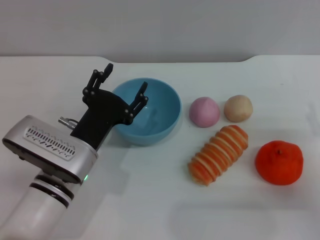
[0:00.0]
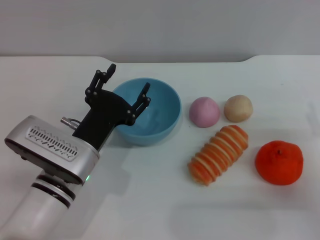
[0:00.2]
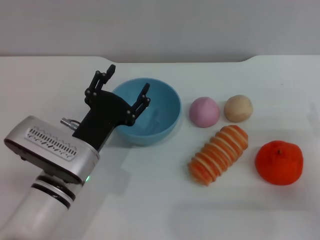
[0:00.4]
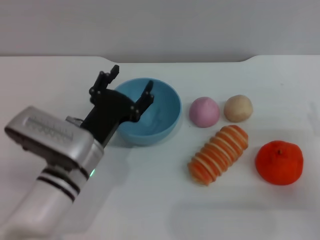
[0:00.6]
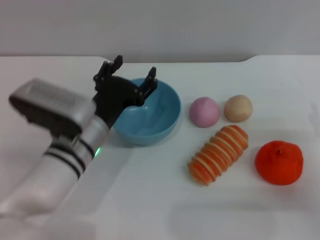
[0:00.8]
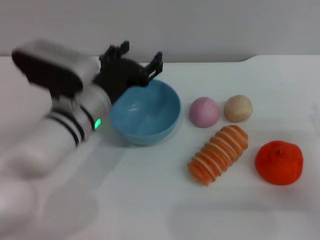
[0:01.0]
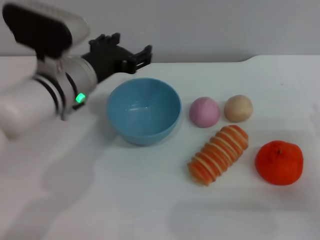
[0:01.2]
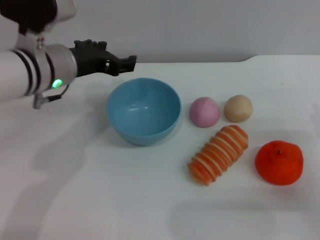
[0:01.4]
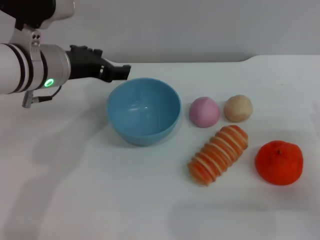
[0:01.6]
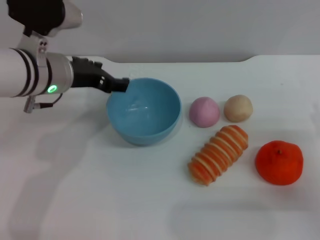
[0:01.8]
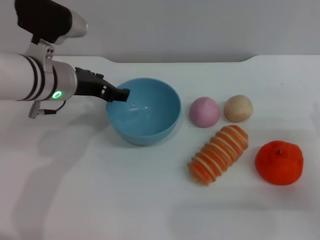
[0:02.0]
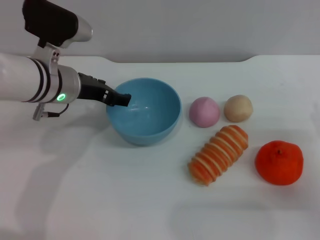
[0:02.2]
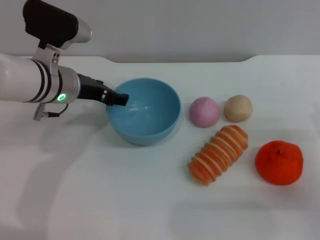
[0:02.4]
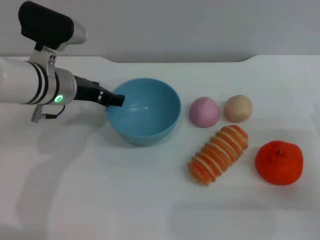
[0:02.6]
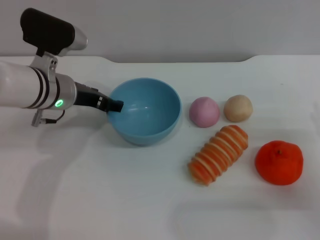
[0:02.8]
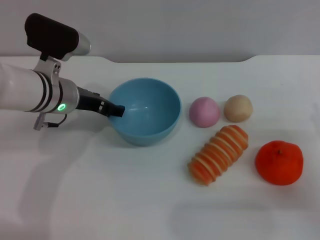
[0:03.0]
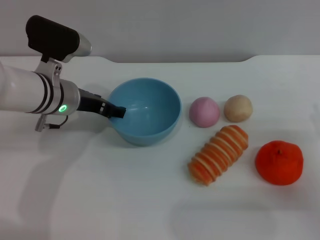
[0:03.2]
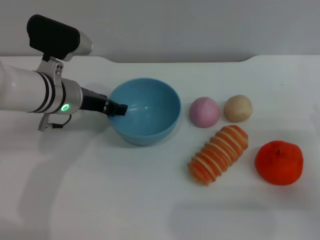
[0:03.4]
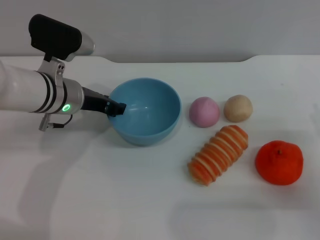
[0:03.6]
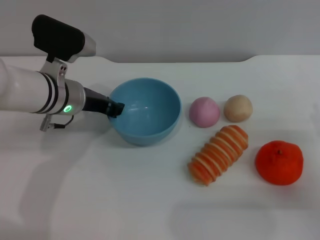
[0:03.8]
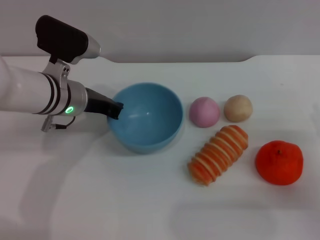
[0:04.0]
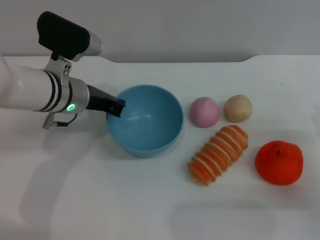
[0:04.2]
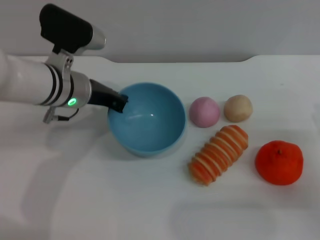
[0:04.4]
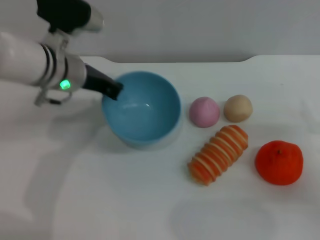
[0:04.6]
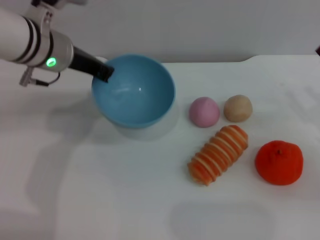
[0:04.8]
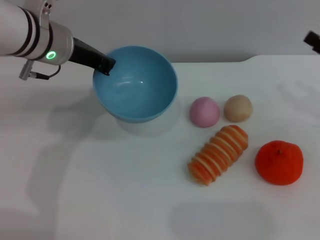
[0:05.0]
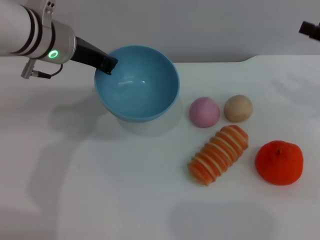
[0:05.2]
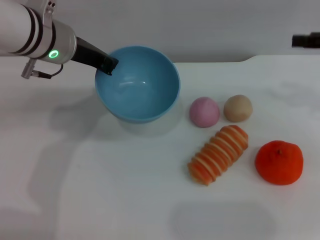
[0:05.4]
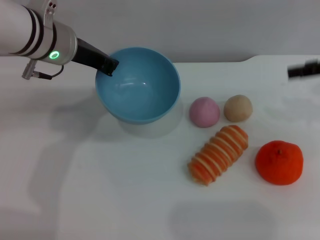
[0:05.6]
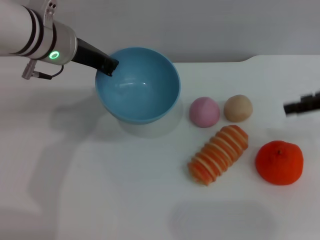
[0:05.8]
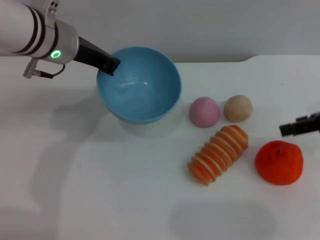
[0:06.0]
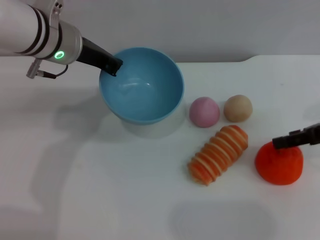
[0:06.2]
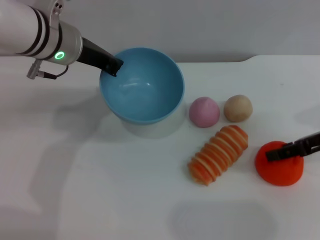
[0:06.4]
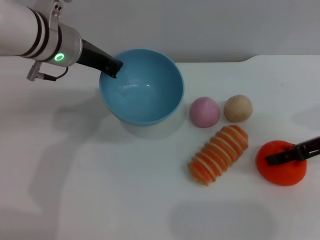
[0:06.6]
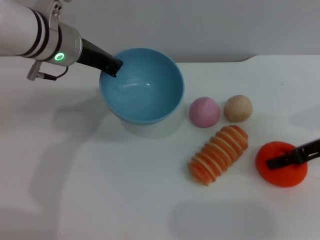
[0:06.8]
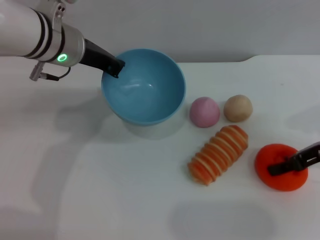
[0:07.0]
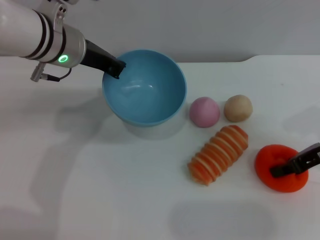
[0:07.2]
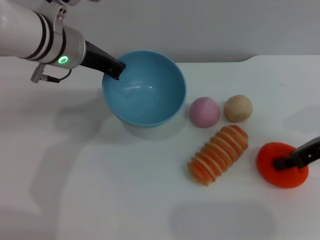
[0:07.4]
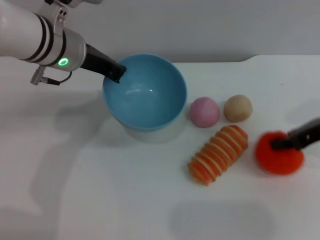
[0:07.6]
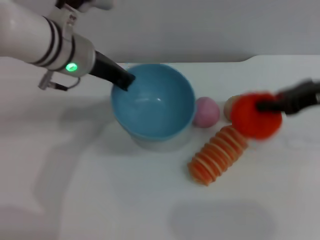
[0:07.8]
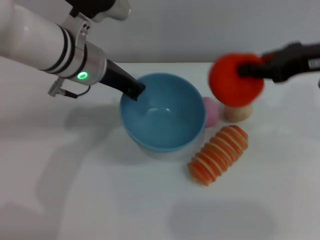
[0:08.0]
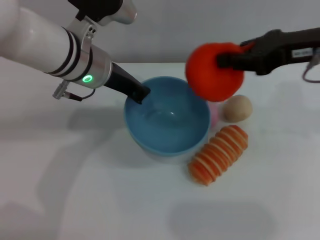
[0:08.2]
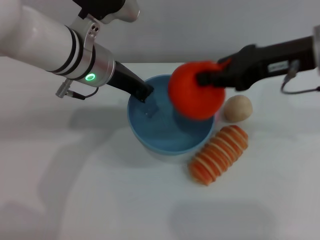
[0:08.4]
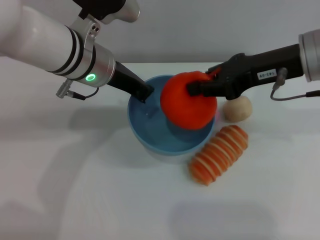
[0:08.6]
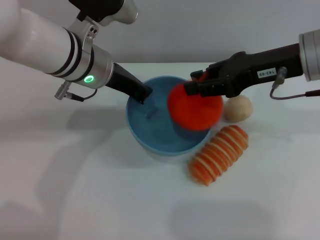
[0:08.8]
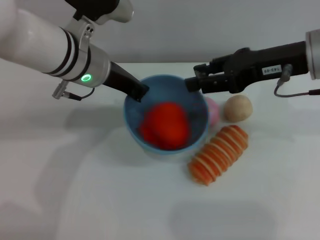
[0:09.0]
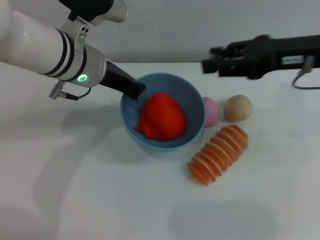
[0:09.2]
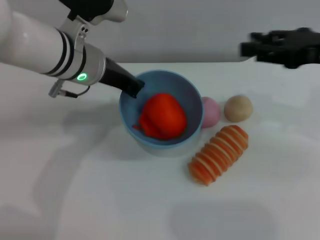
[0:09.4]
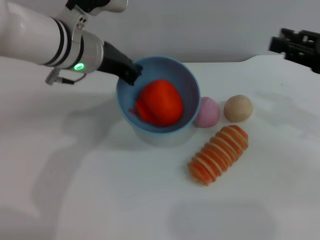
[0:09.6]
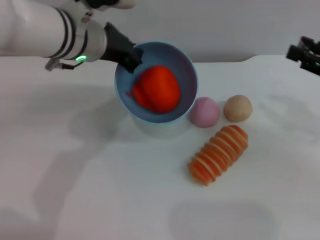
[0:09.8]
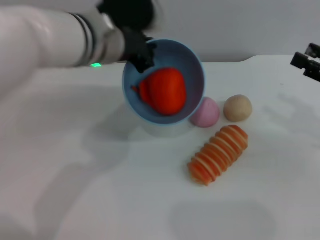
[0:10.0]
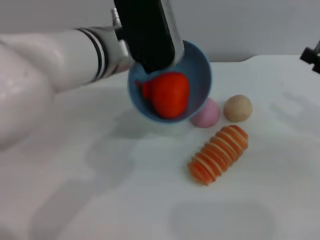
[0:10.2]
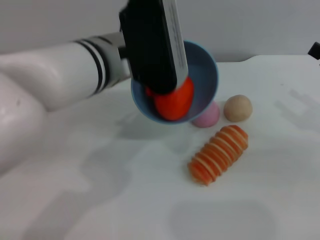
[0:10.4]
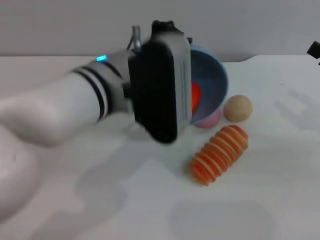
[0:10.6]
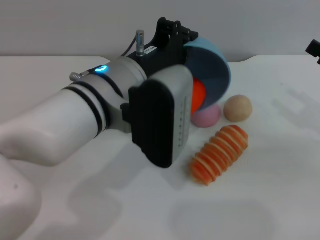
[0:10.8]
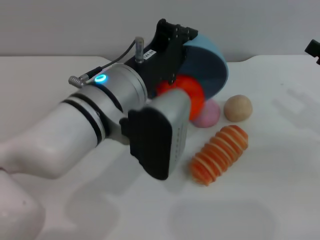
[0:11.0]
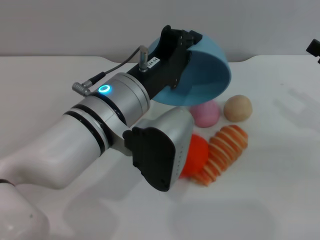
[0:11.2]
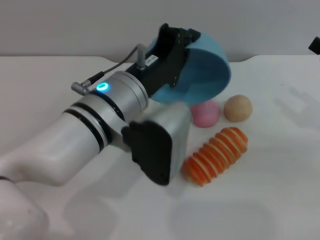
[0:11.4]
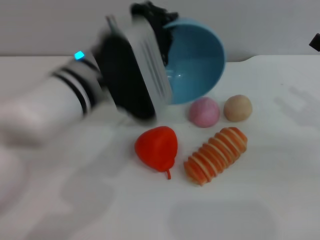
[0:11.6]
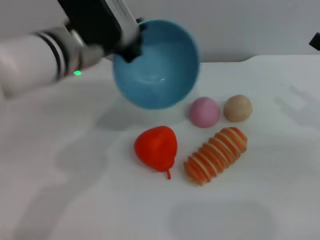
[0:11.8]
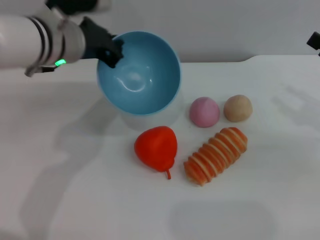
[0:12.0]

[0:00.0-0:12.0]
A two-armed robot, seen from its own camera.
Task of the whole recording: put the orange into the blue bowl and pour it out repeatedly.
Step, 0:00.0 to 0:05.4: Pick up the bowl with the left gripper.
Step, 0:05.6 to 0:07.8: Pick up the orange with the right gripper.
Step, 0:08.0 to 0:09.0: Place the orange into the bowl.
Step, 0:09.2 to 0:11.6: Pour the orange out of the bowl.
0:00.0 to 0:01.6: The left gripper travels upward and forward by roughly 15 cm.
0:01.6 to 0:03.0: The left gripper moves downward, approximately 5 cm.
0:03.0 to 0:04.4: The left gripper closes.
0:04.4 to 0:06.0: The right gripper travels upward and forward by roughly 15 cm, while the left gripper shifts roughly 5 cm upward.
0:06.0 to 0:07.6: The right gripper closes its fingers.
0:07.6 to 0:09.0: The right gripper is displaced to the left and upward by about 10 cm.
0:09.0 to 0:10.4: The right gripper heads to the right, downward and backward, covering approximately 20 cm, and opens. Meanwhile the left gripper heads backward, covering about 5 cm.
0:10.4 to 0:12.0: The left gripper travels to the left by roughly 5 cm.

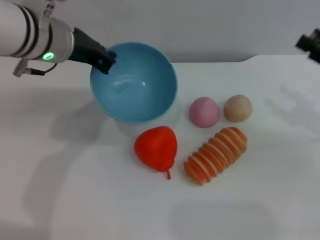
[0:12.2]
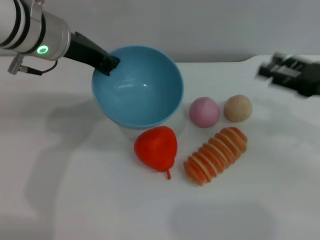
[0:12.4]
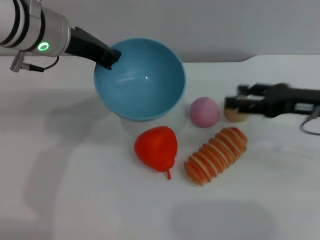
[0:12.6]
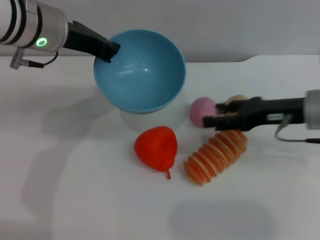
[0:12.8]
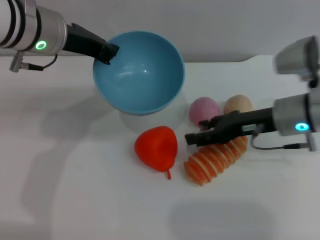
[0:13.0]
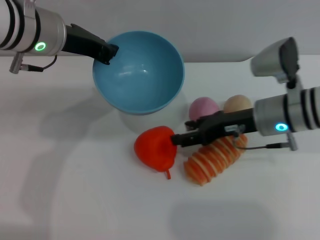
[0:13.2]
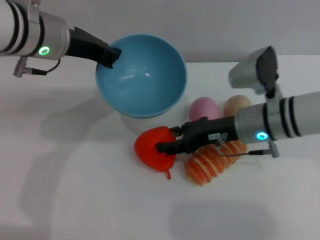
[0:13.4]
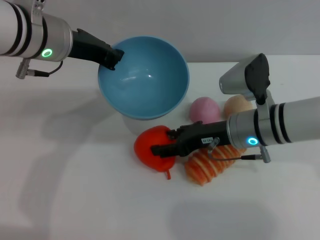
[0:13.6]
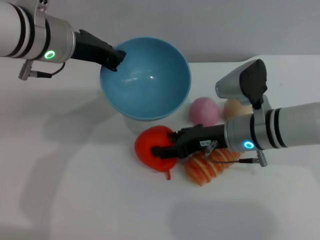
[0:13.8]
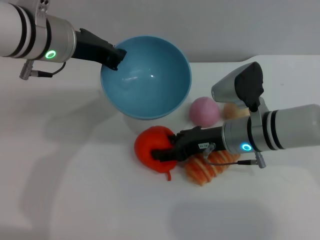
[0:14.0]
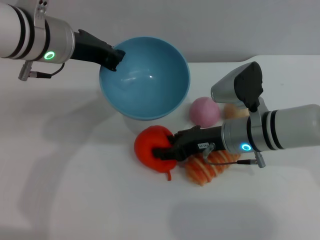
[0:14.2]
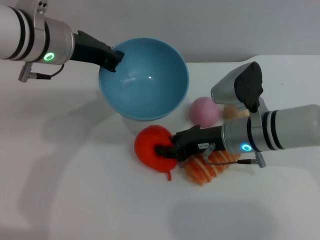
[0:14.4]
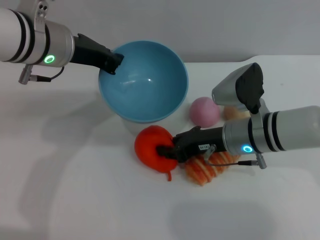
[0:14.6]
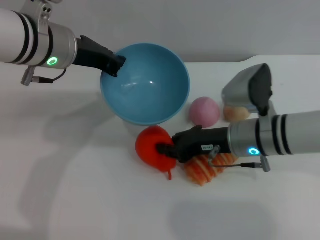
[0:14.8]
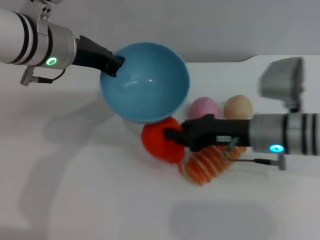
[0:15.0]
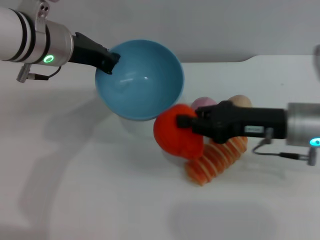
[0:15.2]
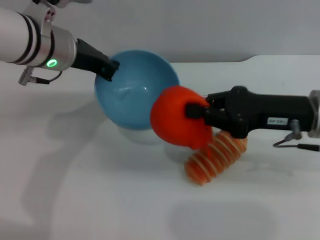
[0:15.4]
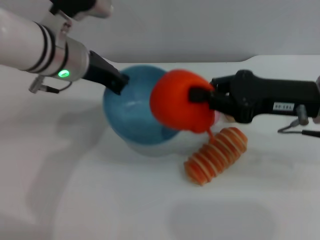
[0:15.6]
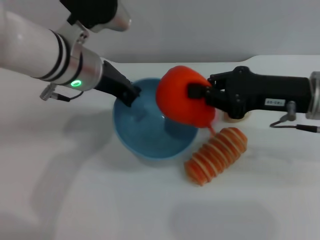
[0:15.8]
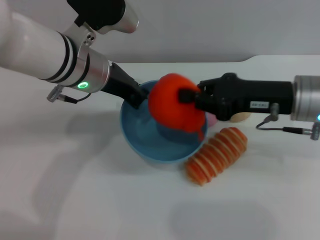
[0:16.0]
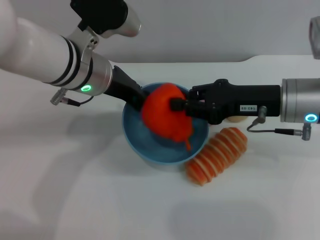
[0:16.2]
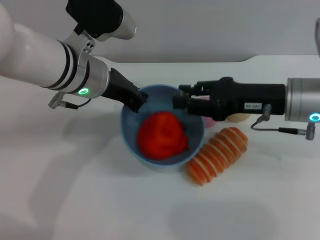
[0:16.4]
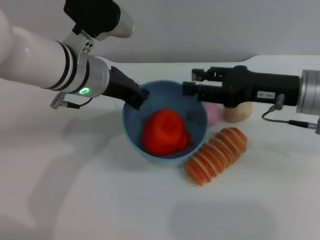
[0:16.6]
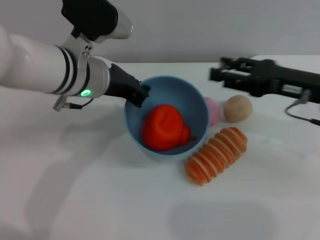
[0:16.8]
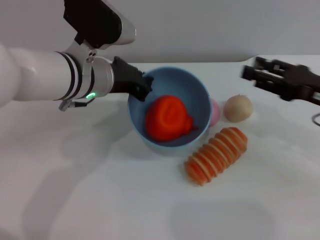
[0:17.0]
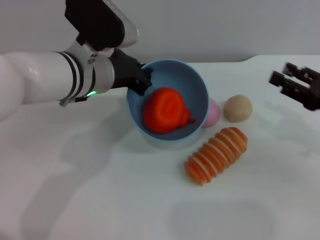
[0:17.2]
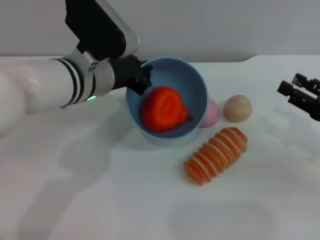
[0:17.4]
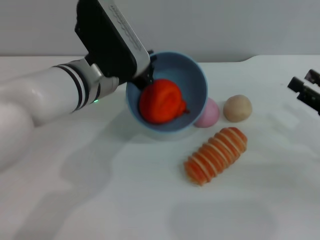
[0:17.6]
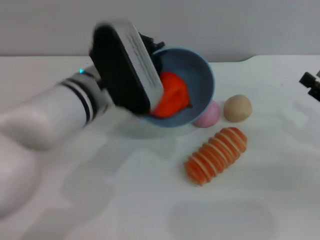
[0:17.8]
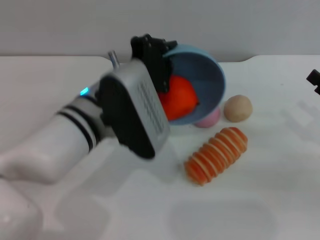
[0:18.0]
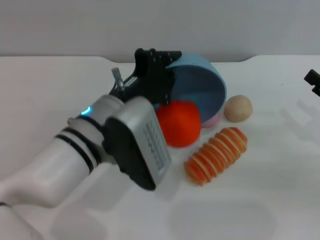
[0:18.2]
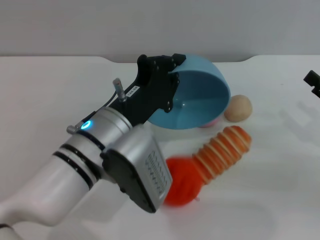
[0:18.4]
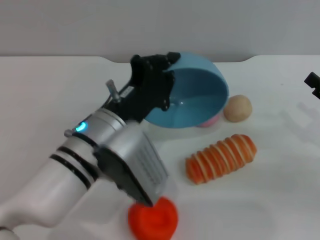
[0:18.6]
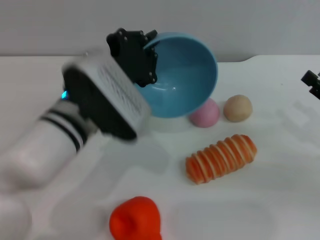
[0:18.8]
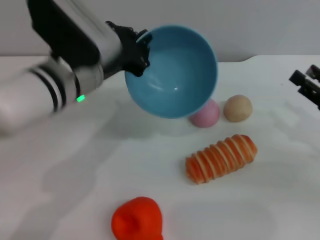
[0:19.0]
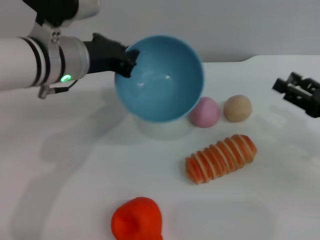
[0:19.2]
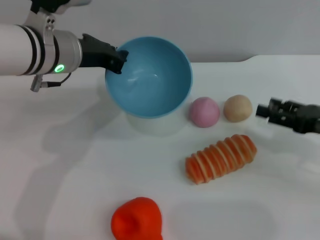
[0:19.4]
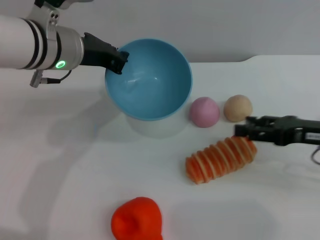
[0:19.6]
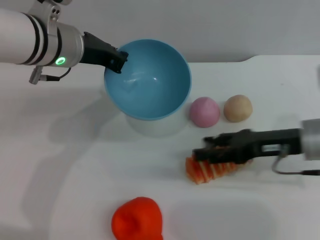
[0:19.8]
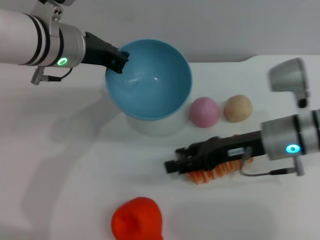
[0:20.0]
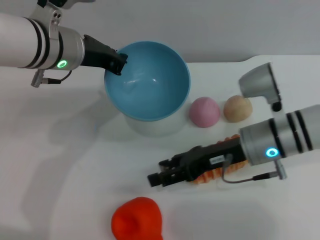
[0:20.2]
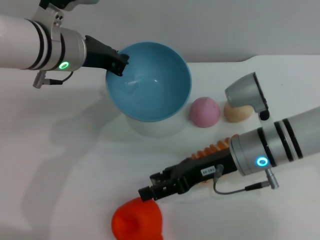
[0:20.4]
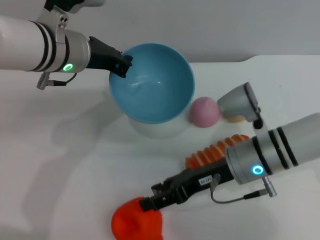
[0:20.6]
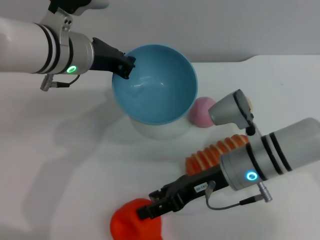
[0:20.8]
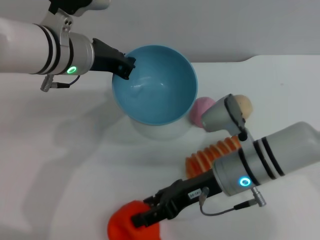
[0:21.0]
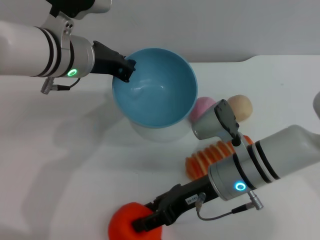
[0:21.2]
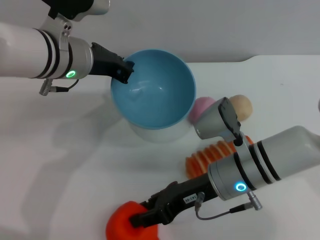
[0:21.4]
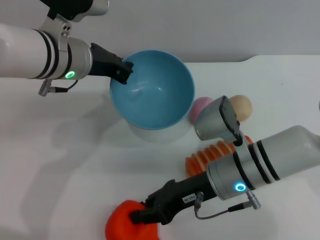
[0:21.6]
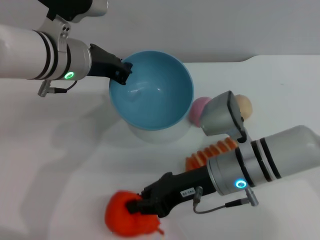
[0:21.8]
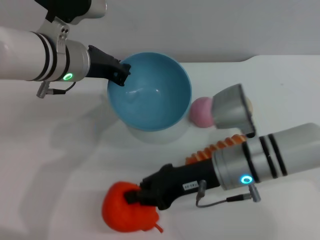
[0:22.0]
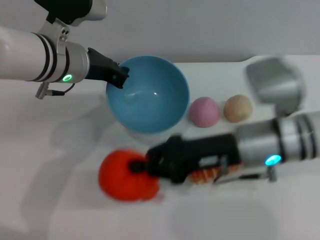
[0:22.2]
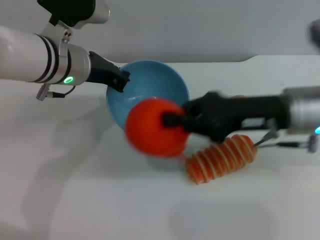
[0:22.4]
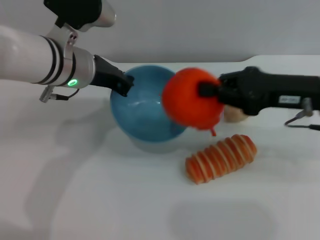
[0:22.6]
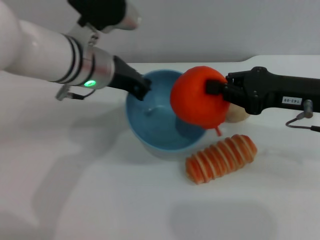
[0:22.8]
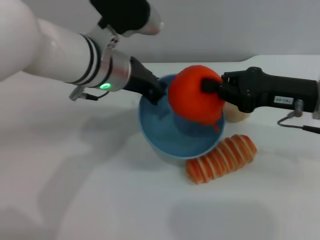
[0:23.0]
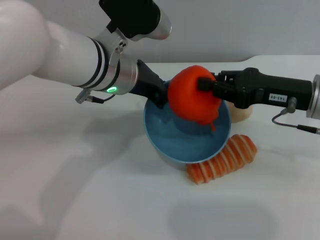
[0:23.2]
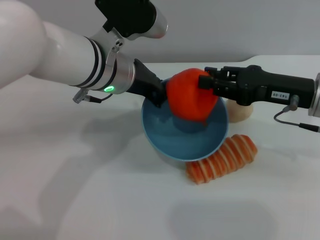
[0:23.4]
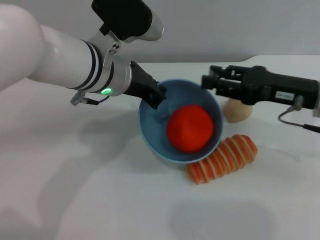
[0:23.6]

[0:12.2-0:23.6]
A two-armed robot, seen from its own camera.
Task of the whole recording: put the orange into the blue bowl and pour it out repeatedly.
Step, 0:12.2 to 0:15.4: Pick up the orange with the right gripper.
Step, 0:15.6 to 0:16.4: Place the orange into the bowl.
Step, 0:16.8 to 0:18.6: Pour the orange out of the bowl.
Step, 0:18.8 to 0:22.2: Pick up the orange with the right gripper.
0:12.2 to 0:13.6: The right gripper travels to the left by about 20 cm.
0:13.6 to 0:15.0: The right gripper closes.
0:15.0 to 0:16.4: The left gripper moves some 5 cm, while the right gripper shifts some 5 cm upward.
0:16.4 to 0:17.8: The right gripper goes roughly 15 cm to the right, backward and downward, and opens up. Meanwhile the left gripper moves approximately 5 cm.
0:17.8 to 0:19.4: The left gripper is displaced to the left and forward by roughly 10 cm.
0:19.4 to 0:20.8: The right gripper goes approximately 20 cm to the left.
0:20.8 to 0:22.2: The right gripper goes roughly 5 cm upward, and closes its fingers.
0:22.2 to 0:23.6: The left gripper moves to the right, approximately 5 cm. Meanwhile the right gripper shifts approximately 10 cm to the right, and opens.
